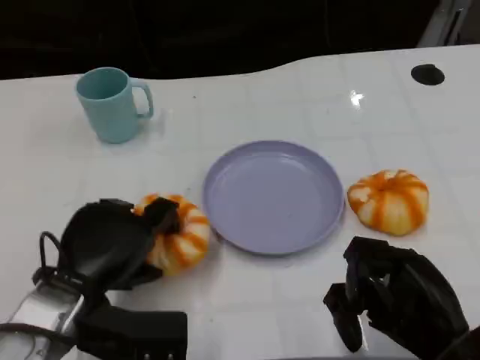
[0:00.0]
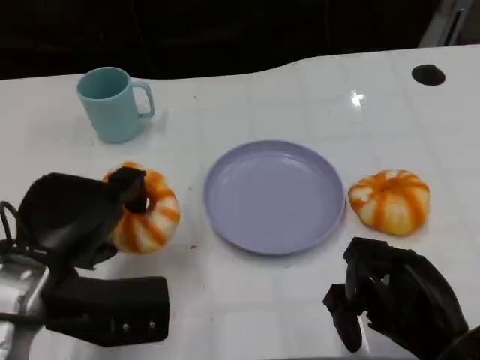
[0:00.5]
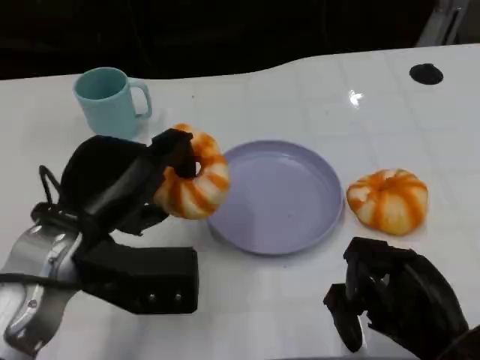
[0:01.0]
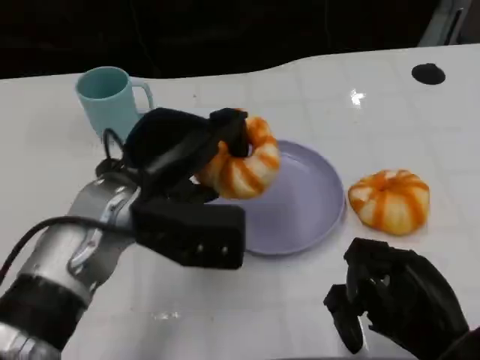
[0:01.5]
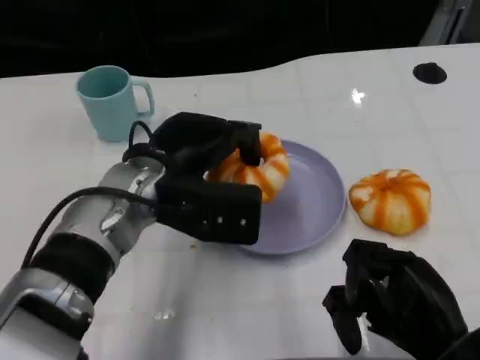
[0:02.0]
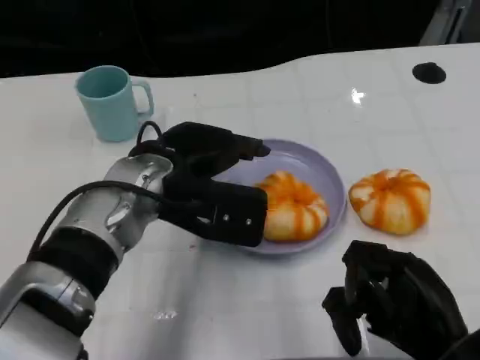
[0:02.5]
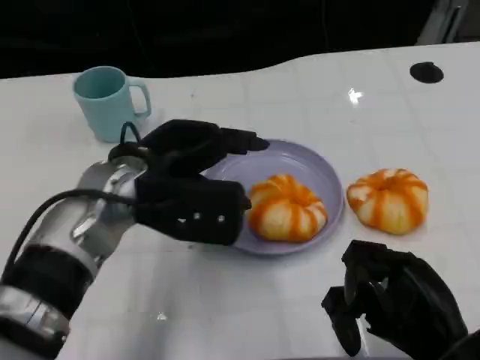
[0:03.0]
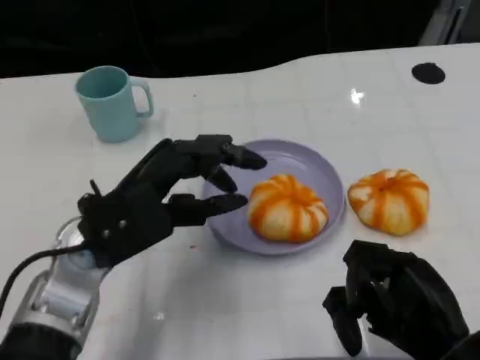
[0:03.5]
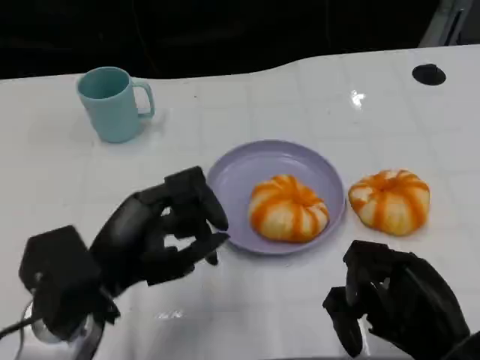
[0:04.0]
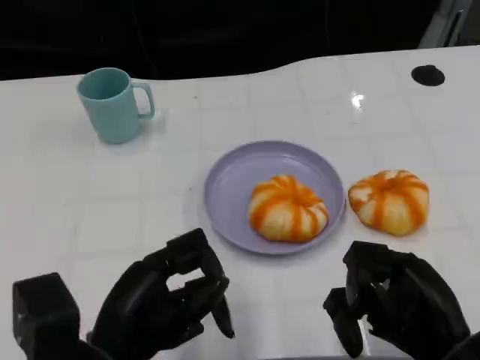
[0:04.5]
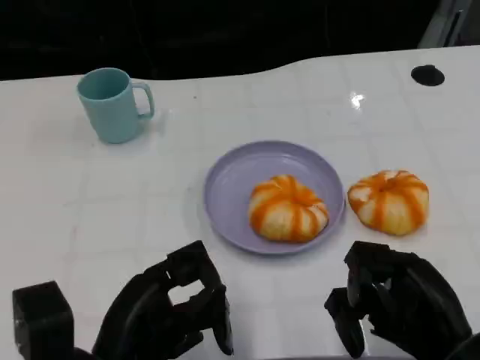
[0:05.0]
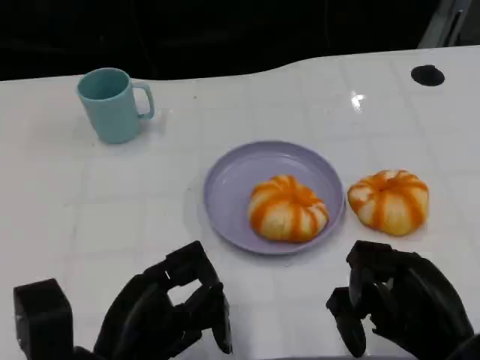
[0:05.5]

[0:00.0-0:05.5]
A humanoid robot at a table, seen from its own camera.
Task of the whole recording: Grasp the bread from the table and place it into the plate.
0:00.0 to 0:02.0: The left hand travels forward, to the right and upward by approximately 15 cm.
0:02.0 to 0:03.5: The left hand is displaced to the left by about 5 cm.
0:03.5 to 0:05.5: The left hand heads backward and downward, covering roughly 10 cm.

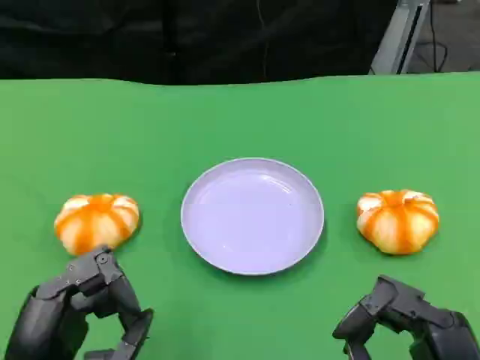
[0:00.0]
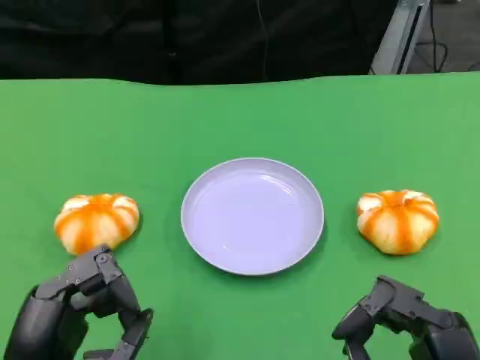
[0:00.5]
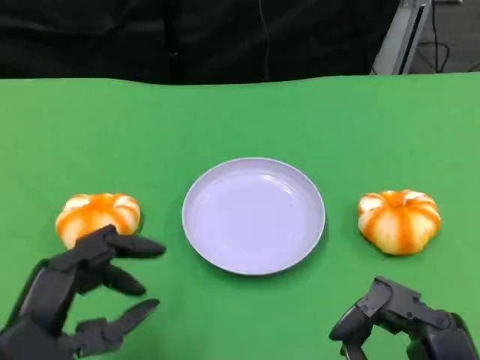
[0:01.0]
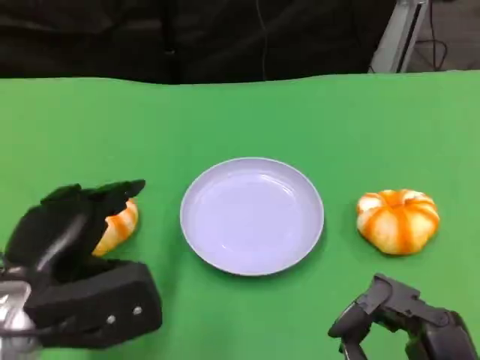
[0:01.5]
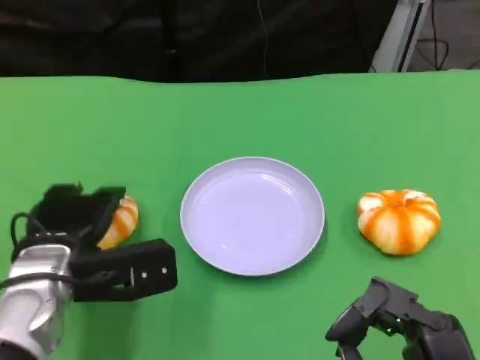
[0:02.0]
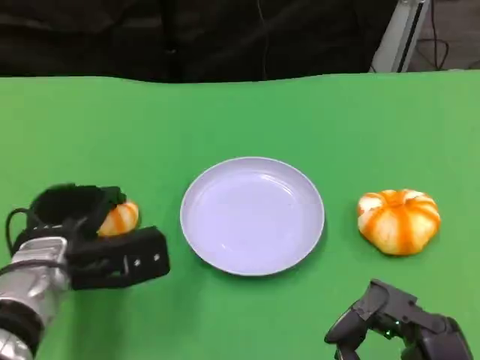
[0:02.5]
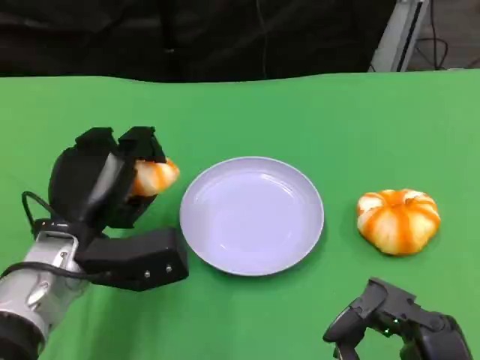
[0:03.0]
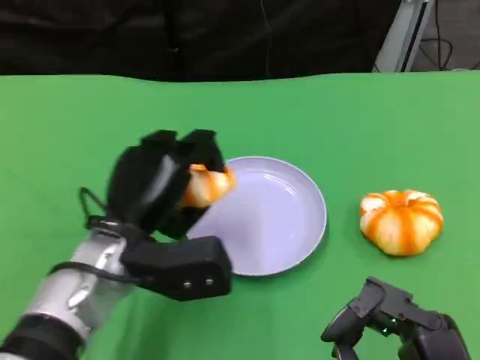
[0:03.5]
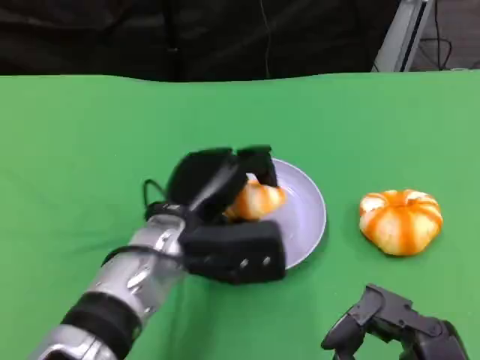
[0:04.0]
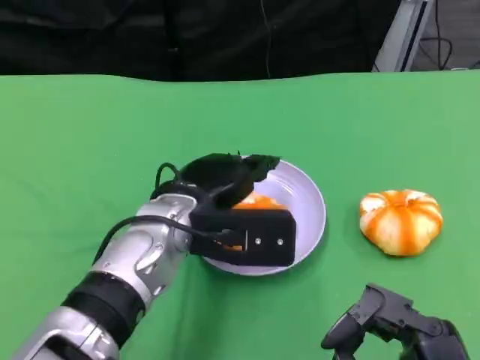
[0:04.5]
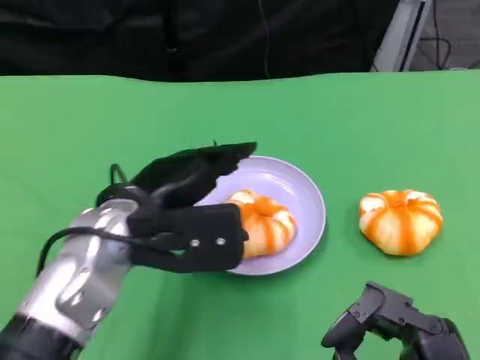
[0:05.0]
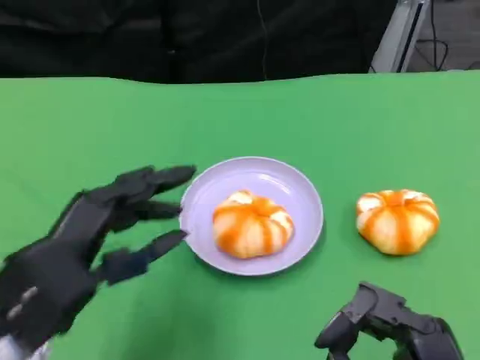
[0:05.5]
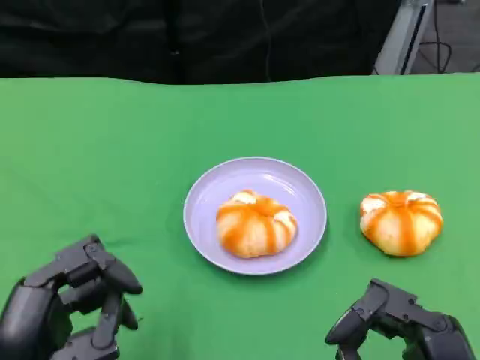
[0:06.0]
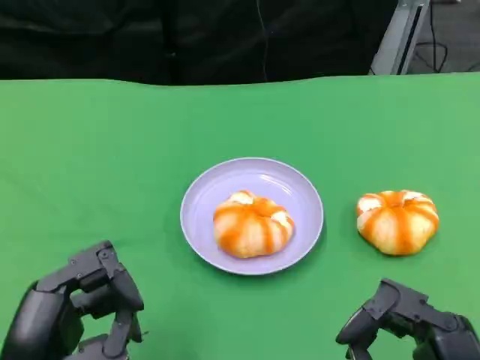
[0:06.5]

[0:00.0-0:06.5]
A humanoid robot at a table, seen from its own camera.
Task of the whole recording: Grasp the bread from the table and place it into the plate.
0:00.0 to 0:02.0: The left hand moves forward, roughly 15 cm.
0:02.0 to 0:04.5: The left hand is displaced to the right and upward by roughly 15 cm.
0:04.5 to 0:06.5: The left hand moves backward and to the left, about 20 cm.

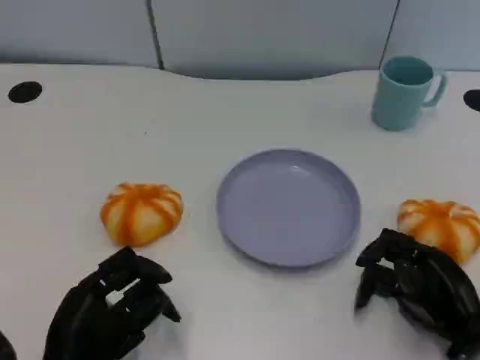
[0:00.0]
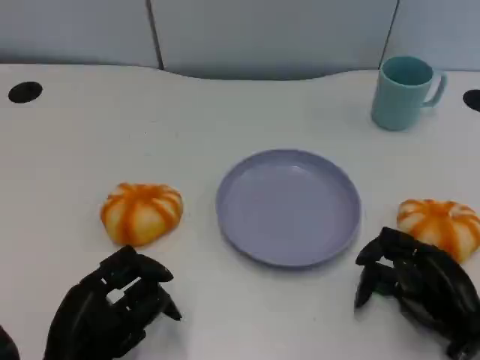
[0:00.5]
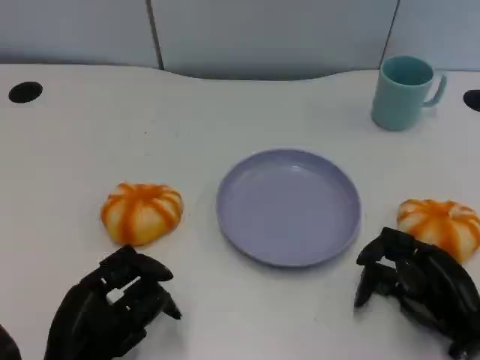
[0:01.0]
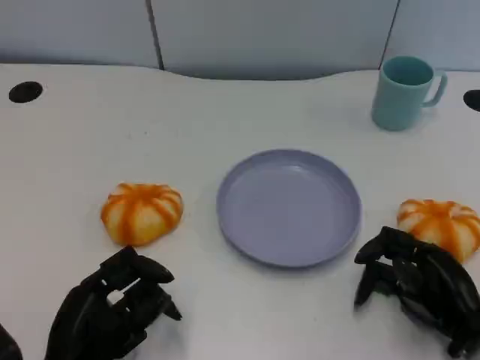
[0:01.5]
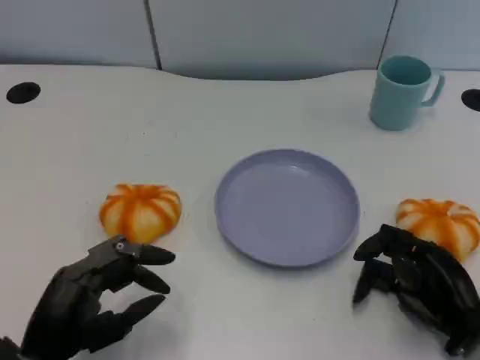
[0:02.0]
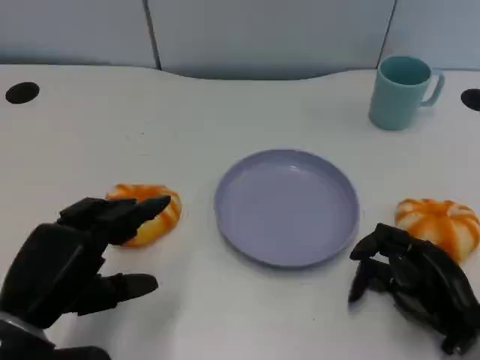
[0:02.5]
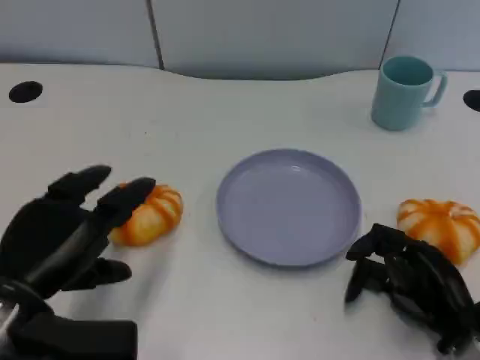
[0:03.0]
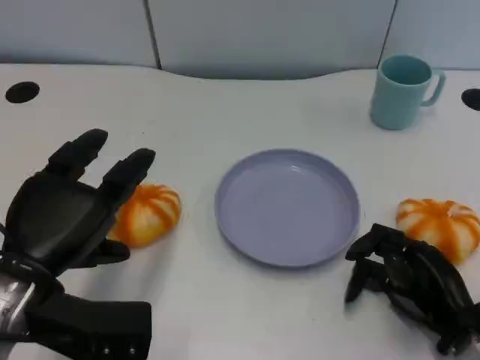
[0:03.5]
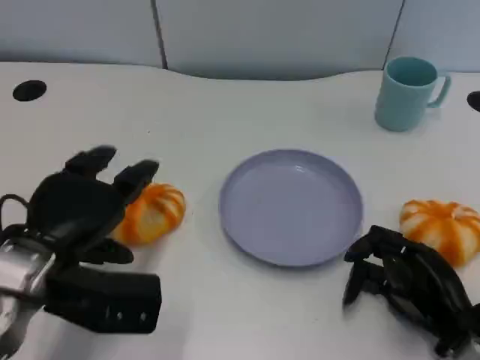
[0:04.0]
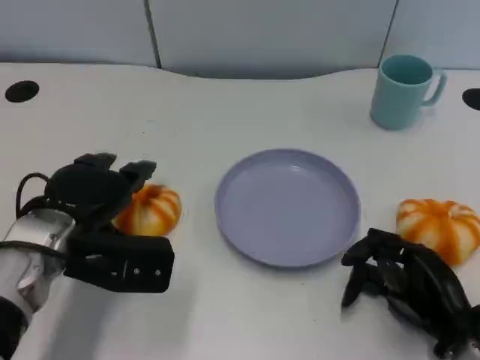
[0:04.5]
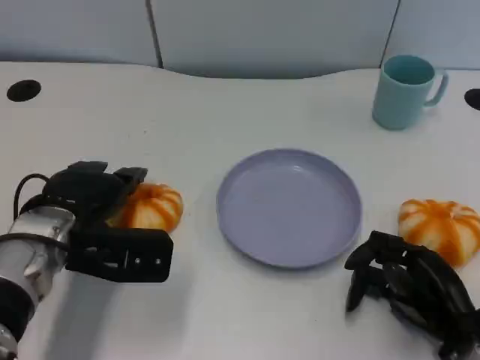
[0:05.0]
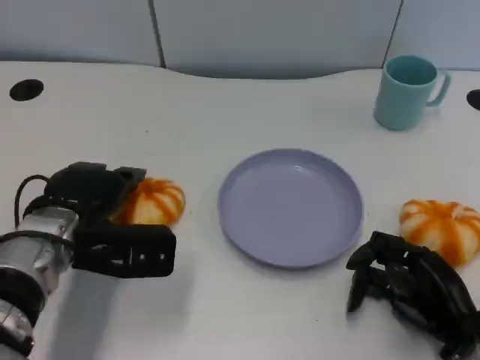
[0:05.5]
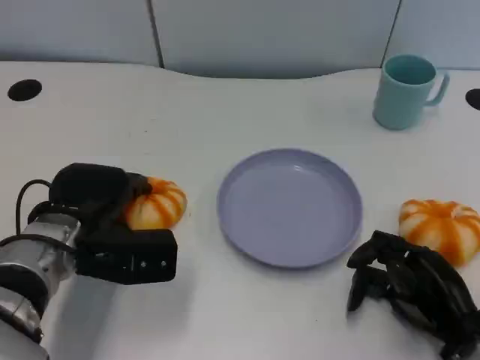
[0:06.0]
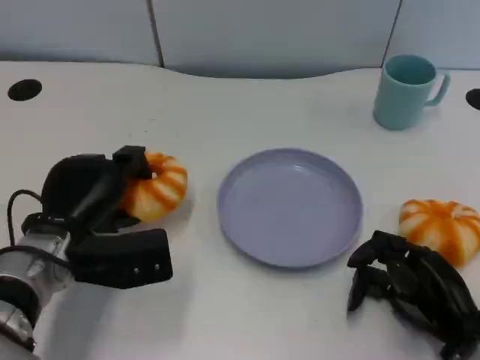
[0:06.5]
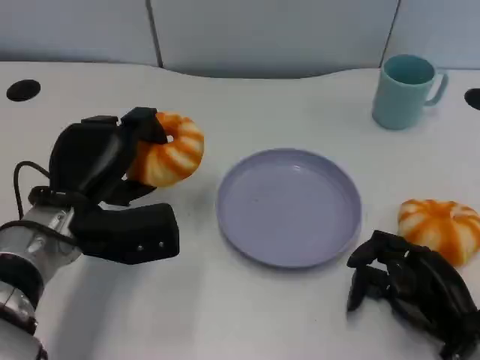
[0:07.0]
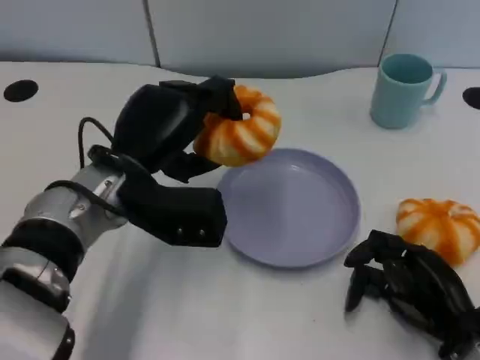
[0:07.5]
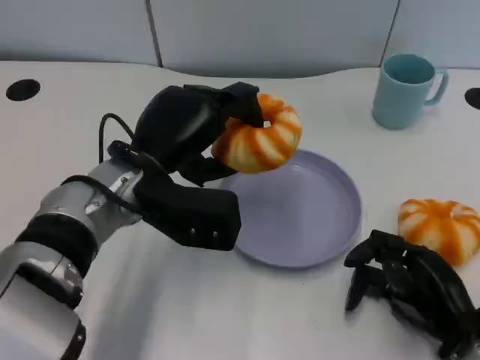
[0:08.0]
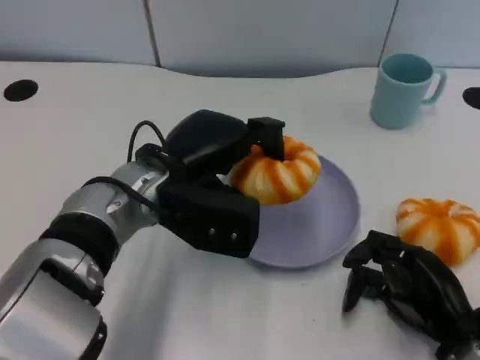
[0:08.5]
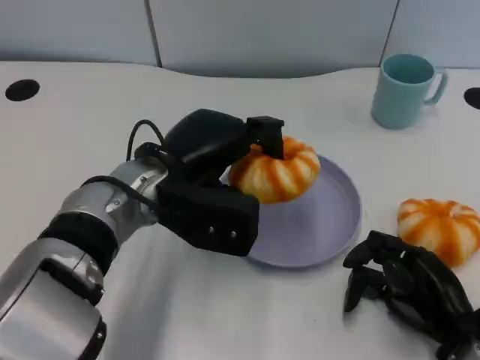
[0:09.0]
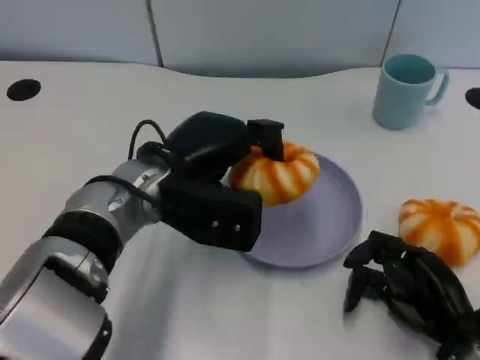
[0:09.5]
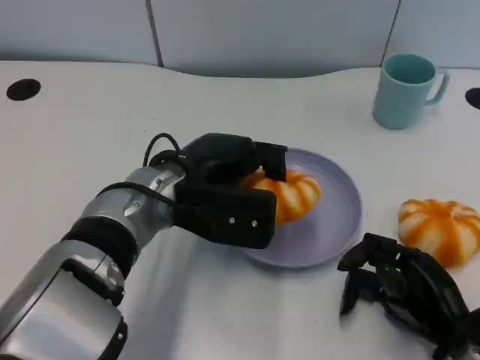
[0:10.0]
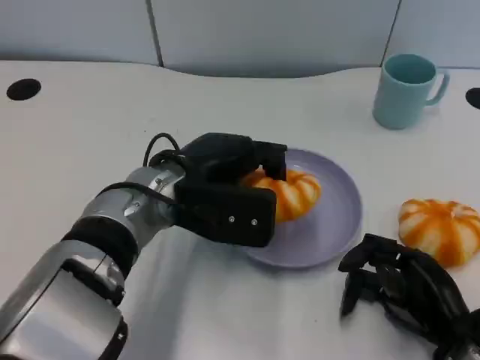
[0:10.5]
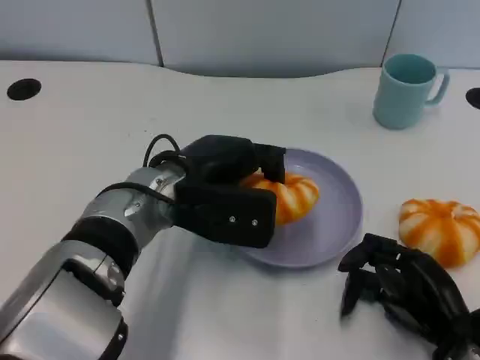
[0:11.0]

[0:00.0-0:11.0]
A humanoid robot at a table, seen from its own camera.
Task of the whole recording: Grasp the bread from the table and place it into the plate.
0:02.0 to 0:03.5: The left hand heads upward and forward, covering approximately 10 cm.
0:03.5 to 0:05.5: The left hand moves forward, about 10 cm.
0:05.5 to 0:07.5: The left hand heads to the right and upward, covering roughly 10 cm.
0:09.0 to 0:11.0: The hands move only a little.

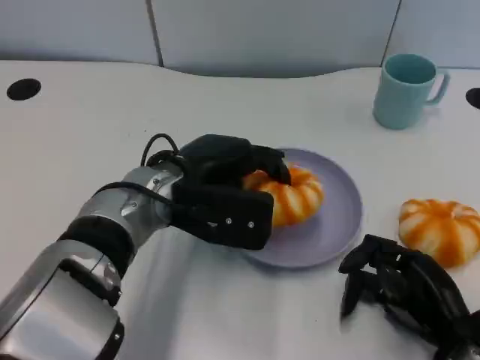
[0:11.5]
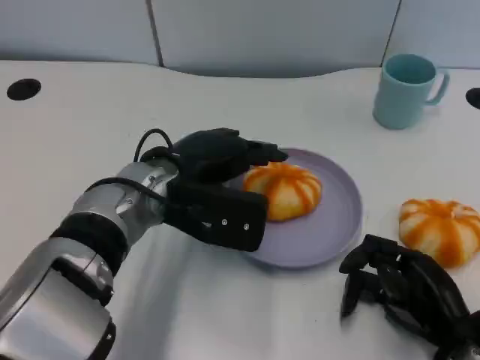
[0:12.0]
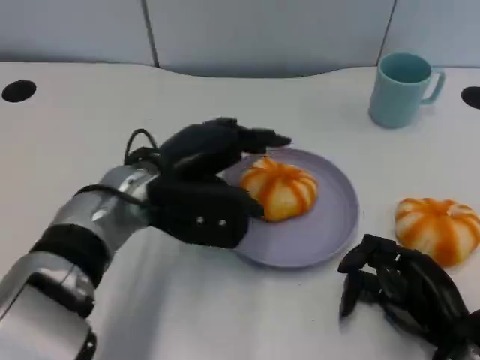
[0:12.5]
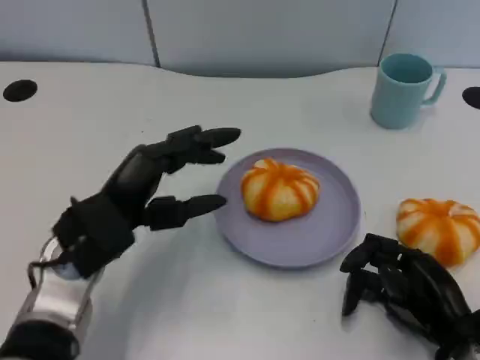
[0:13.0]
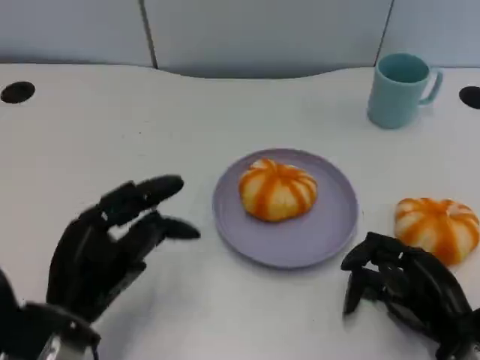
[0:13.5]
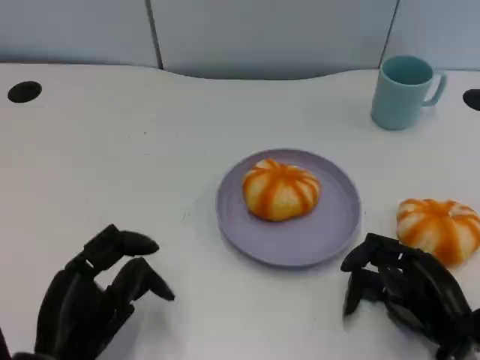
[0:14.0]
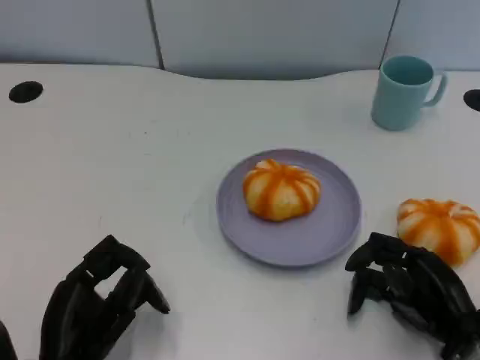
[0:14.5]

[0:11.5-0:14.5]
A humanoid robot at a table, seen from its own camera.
Task of the whole recording: Grasp the bread from the table and place it into the plate.
0:11.5 to 0:13.0: The left hand travels to the left and backward by approximately 10 cm.
0:13.0 to 0:14.5: The left hand is displaced backward and downward by roughly 10 cm.
